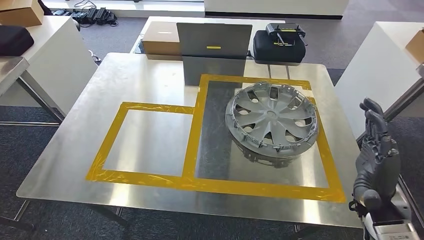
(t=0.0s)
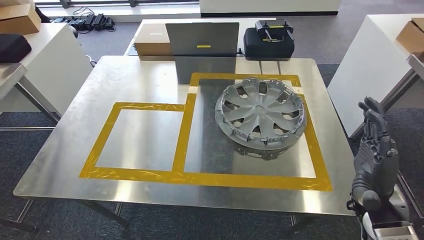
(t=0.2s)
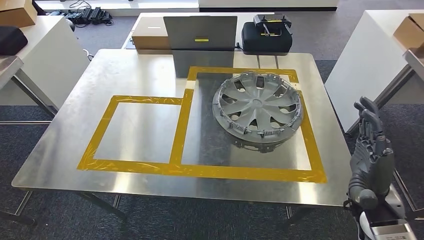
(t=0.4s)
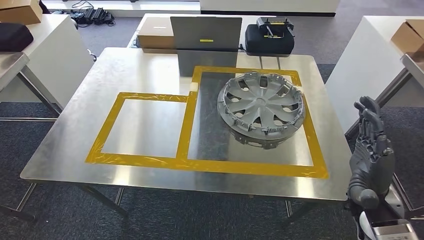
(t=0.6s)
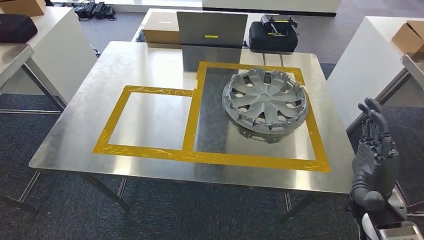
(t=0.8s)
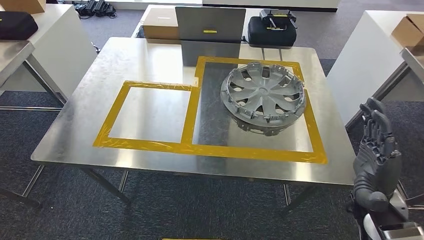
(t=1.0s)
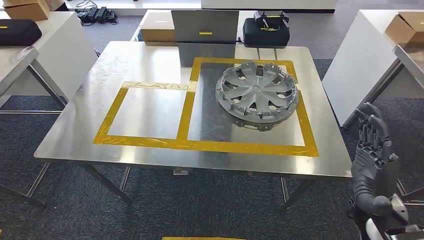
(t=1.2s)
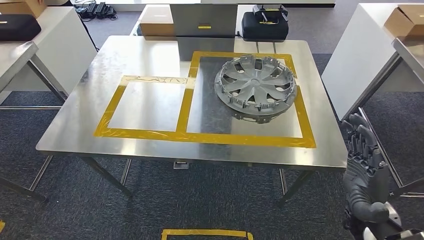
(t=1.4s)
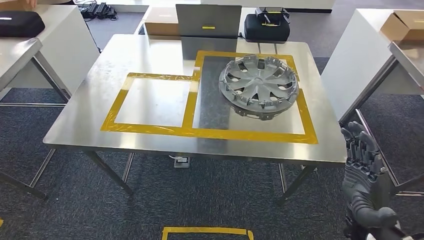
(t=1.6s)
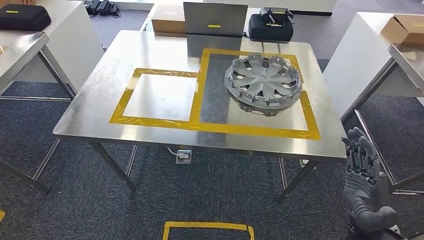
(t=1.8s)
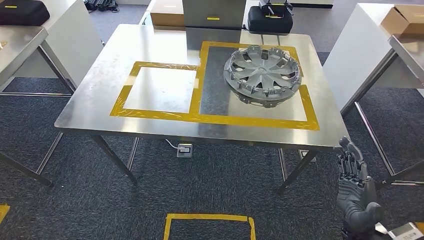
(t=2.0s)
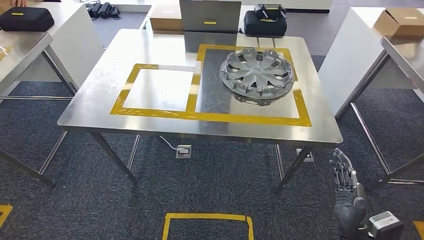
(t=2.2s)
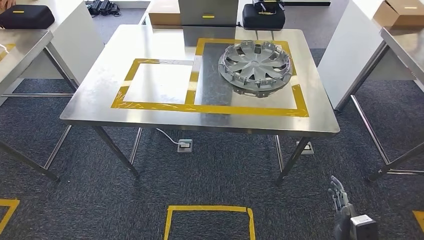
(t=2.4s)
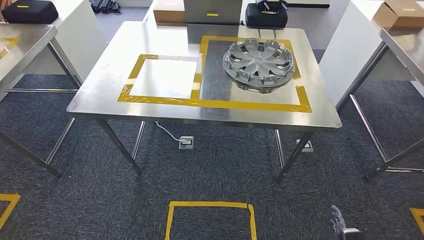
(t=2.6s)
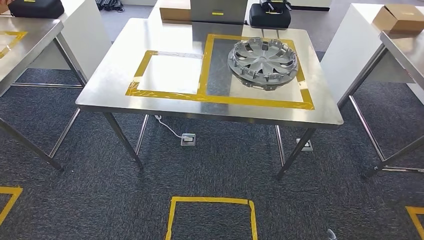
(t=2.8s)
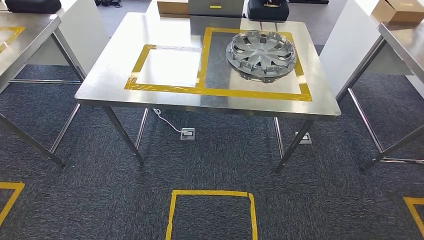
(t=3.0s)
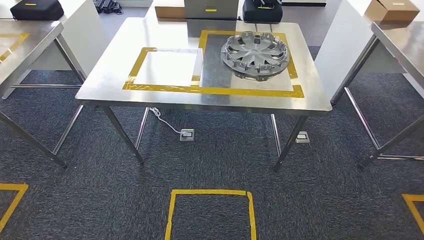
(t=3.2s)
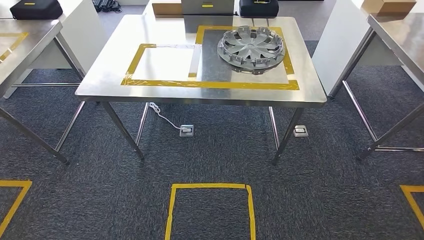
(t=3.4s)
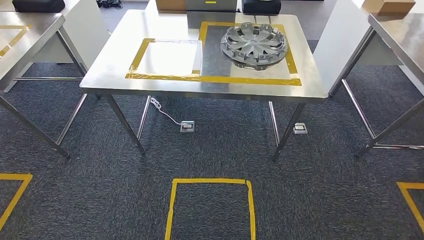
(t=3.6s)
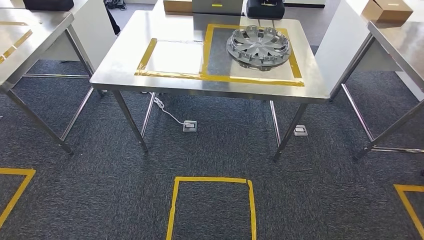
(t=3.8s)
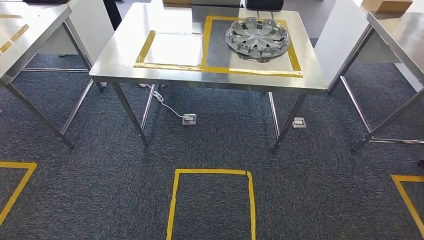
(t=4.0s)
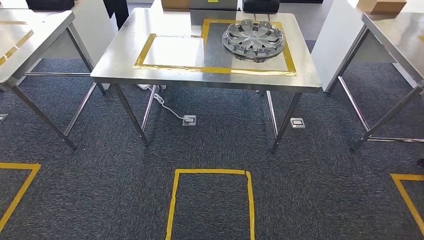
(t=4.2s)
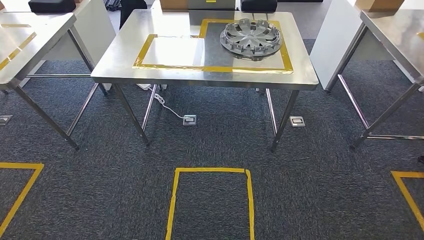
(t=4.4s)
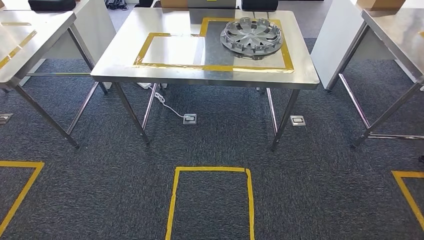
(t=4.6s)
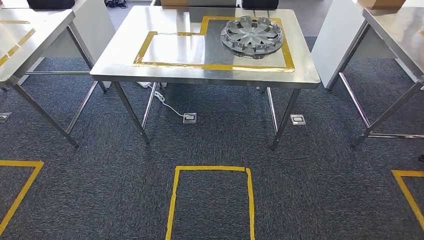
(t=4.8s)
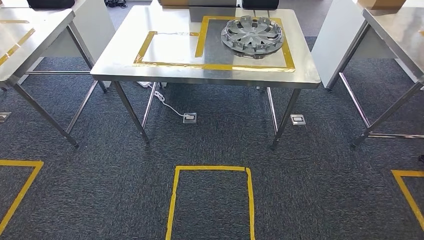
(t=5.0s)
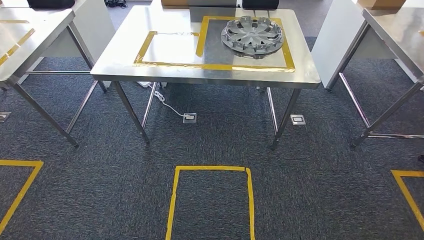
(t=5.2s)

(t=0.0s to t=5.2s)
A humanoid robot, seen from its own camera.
Step, t=0.4s - t=5.2s: Return to the initial position at the workbench.
